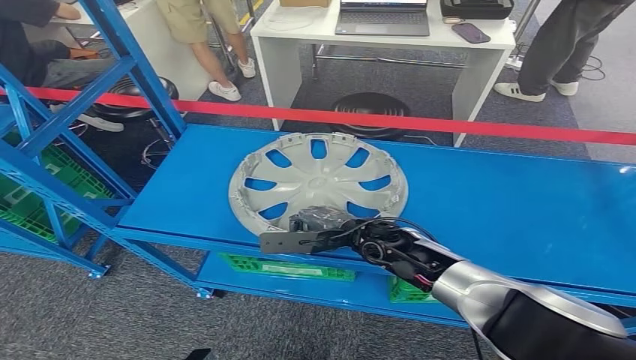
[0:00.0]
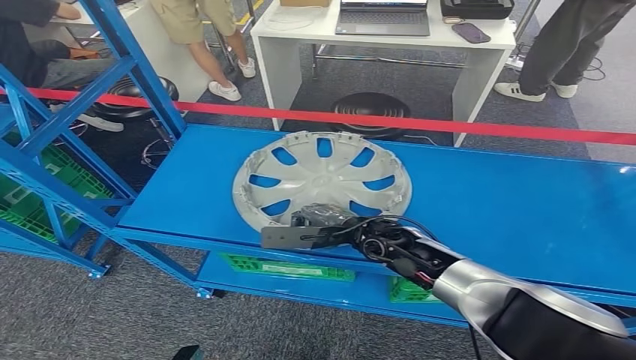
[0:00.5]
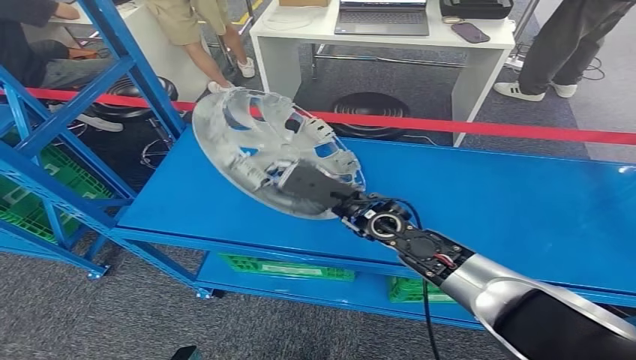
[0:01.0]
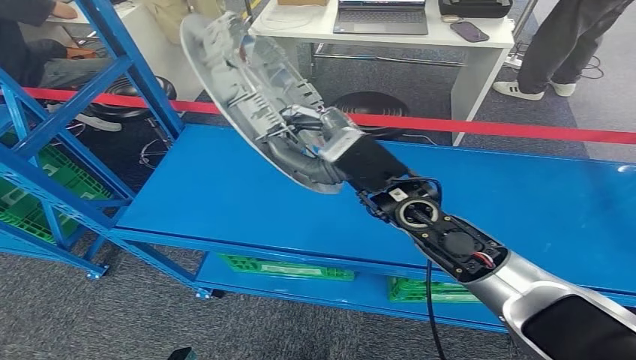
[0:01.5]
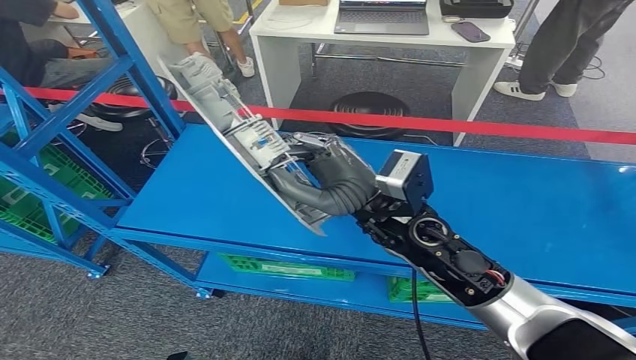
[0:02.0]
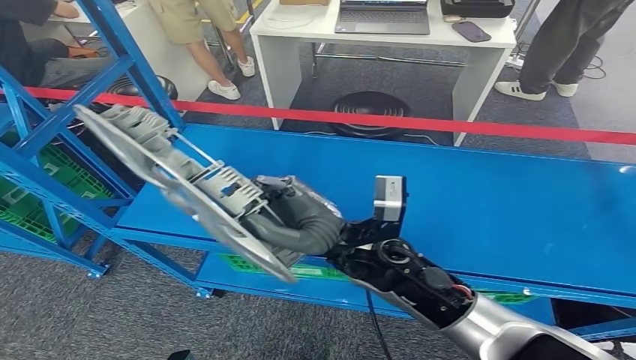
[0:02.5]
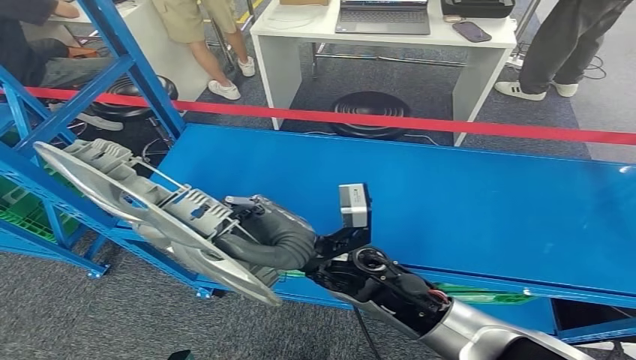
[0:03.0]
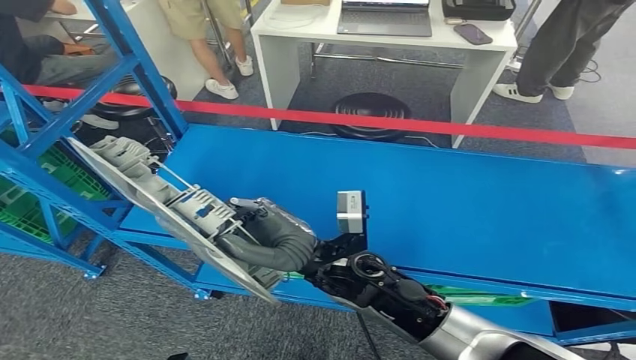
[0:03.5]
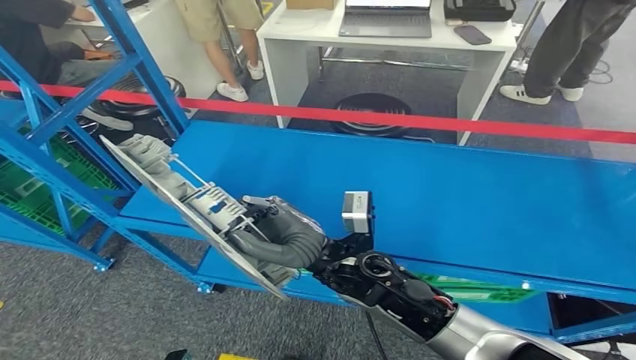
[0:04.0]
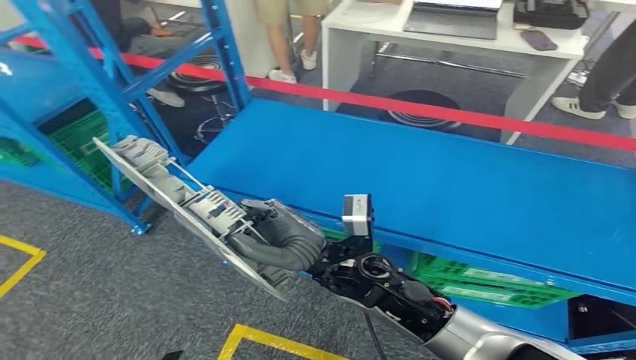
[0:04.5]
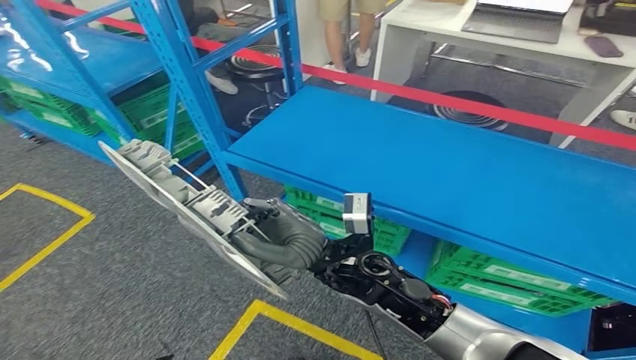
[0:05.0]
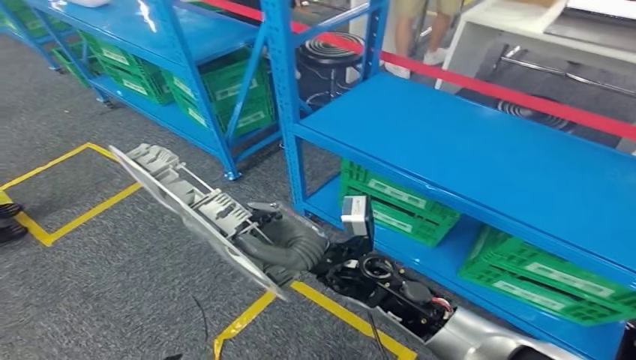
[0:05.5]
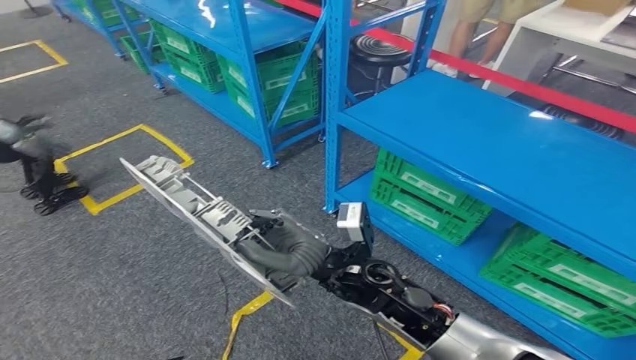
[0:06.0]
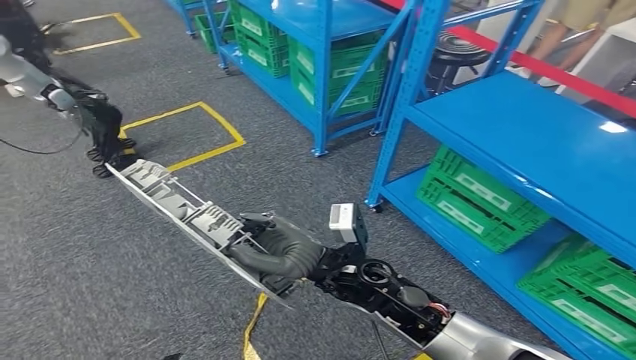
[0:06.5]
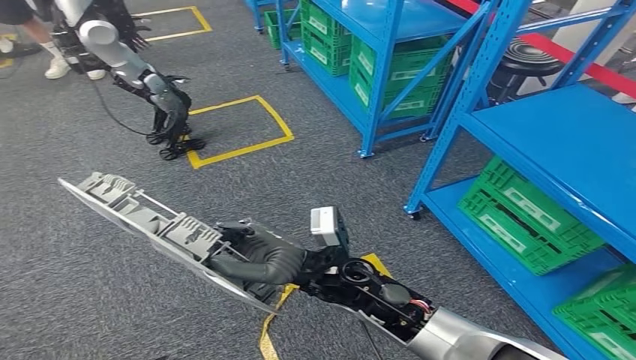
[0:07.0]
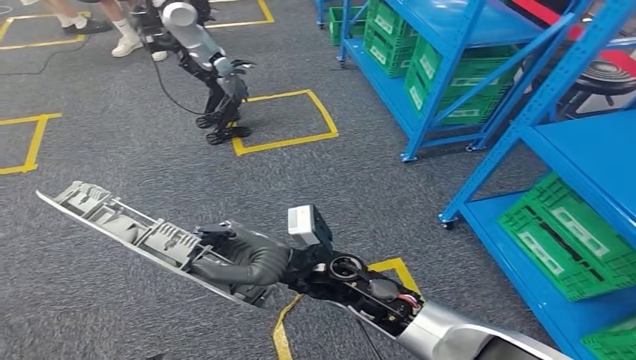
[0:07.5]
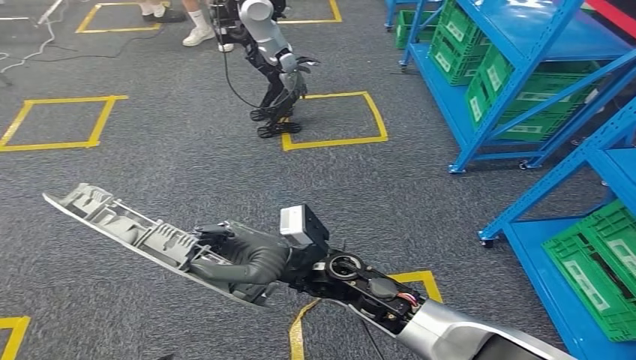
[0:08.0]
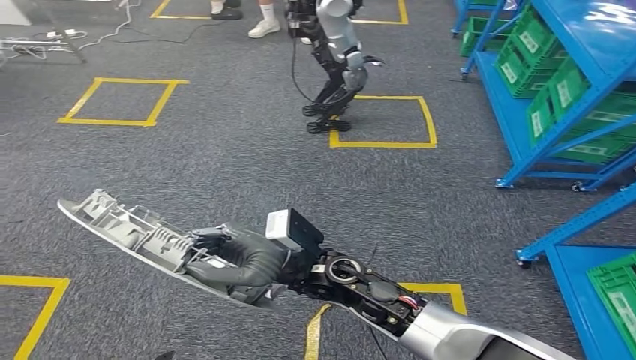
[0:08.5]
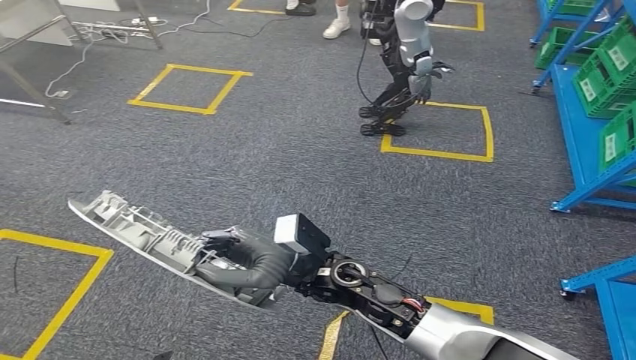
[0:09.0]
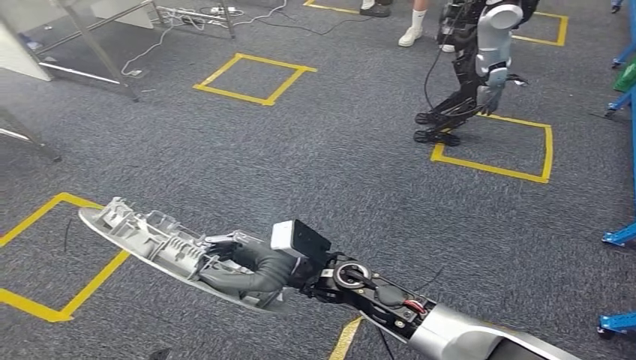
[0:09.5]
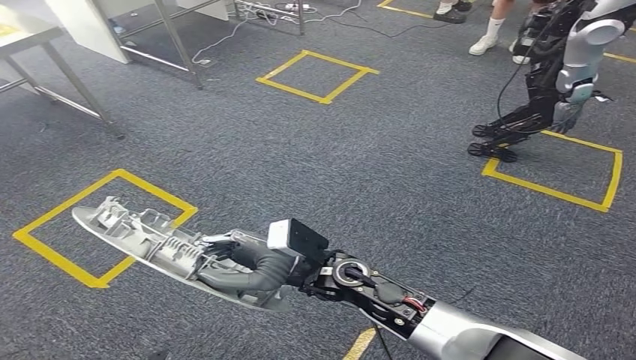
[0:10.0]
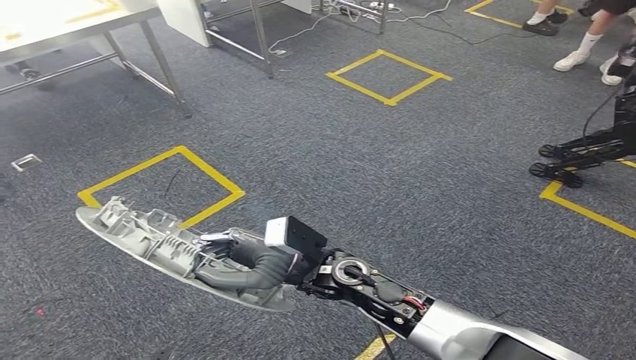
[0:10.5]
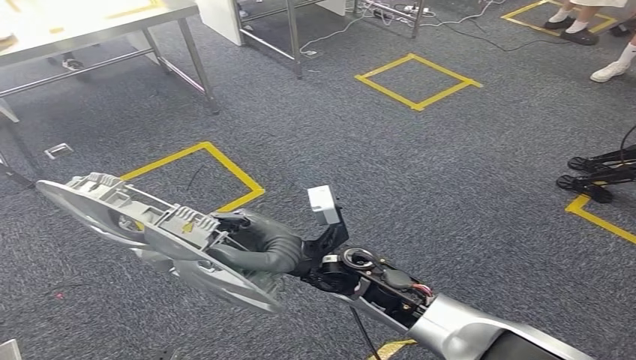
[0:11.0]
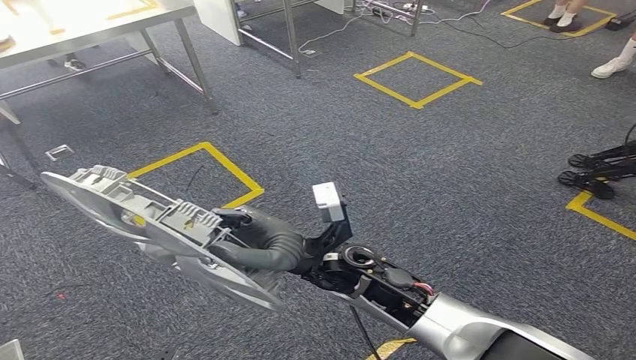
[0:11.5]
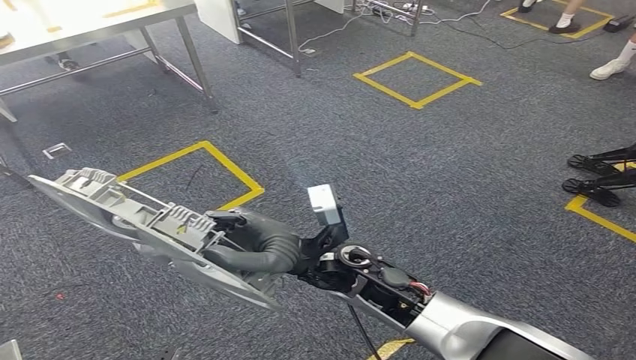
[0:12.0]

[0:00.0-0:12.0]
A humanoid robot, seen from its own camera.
Step, 0:00.0 to 0:02.5: Pick up the small parts from the shelf.
0:00.0 to 0:02.0: The right hand travels upward by roughly 15 cm.

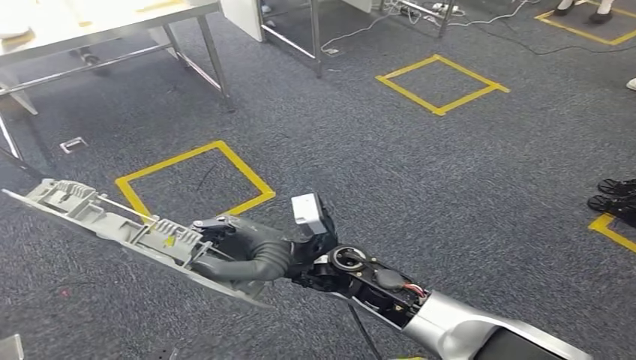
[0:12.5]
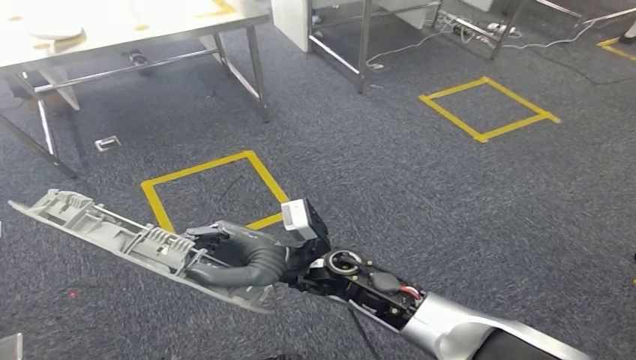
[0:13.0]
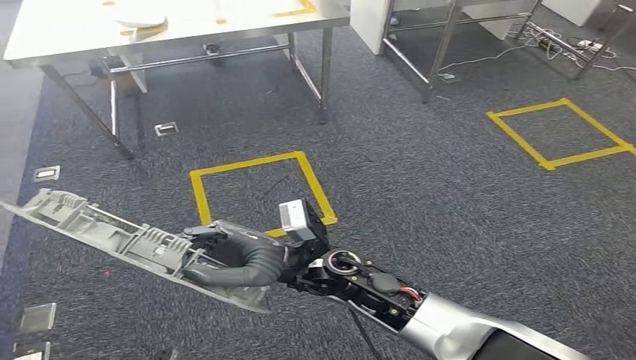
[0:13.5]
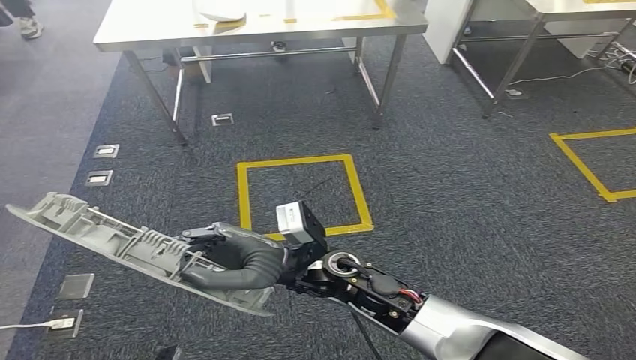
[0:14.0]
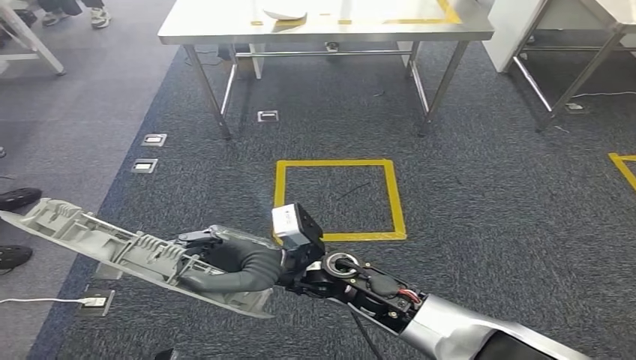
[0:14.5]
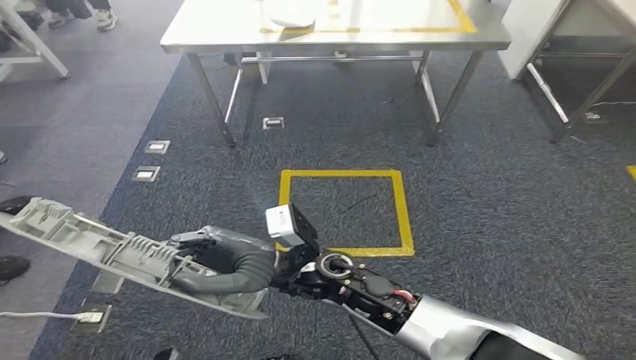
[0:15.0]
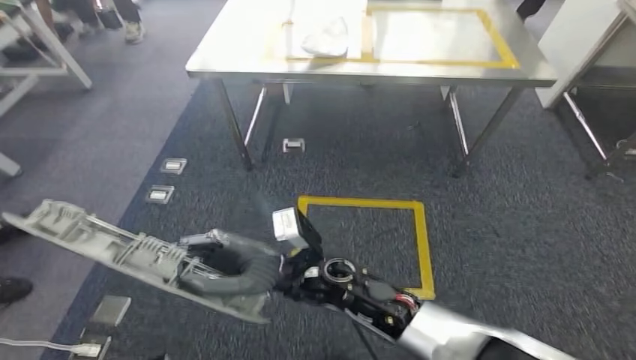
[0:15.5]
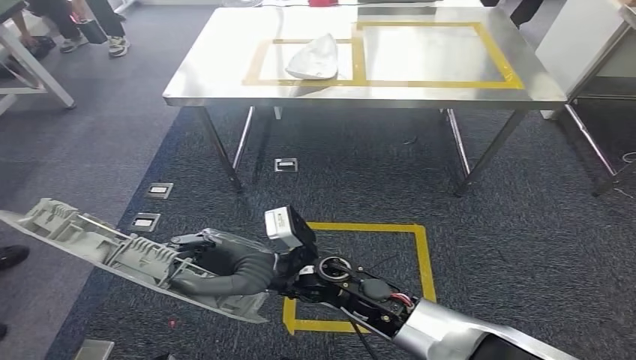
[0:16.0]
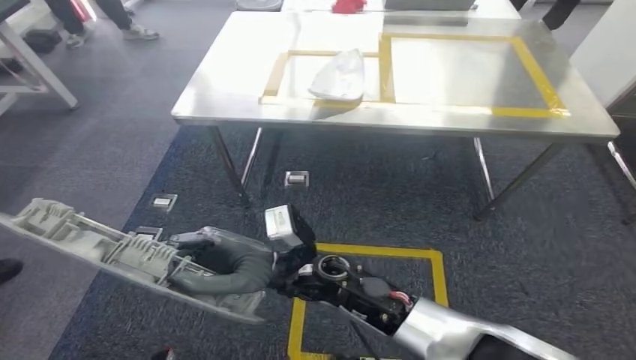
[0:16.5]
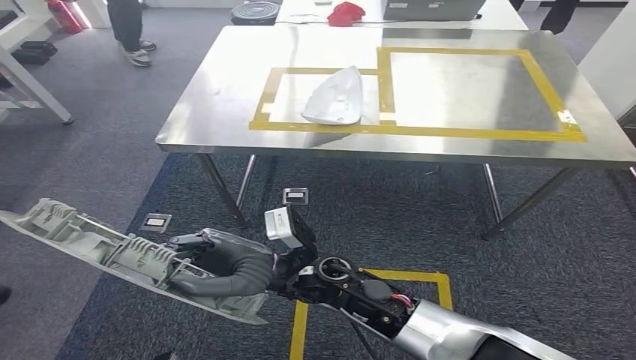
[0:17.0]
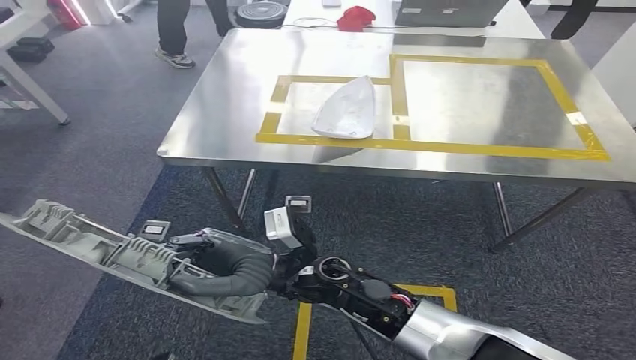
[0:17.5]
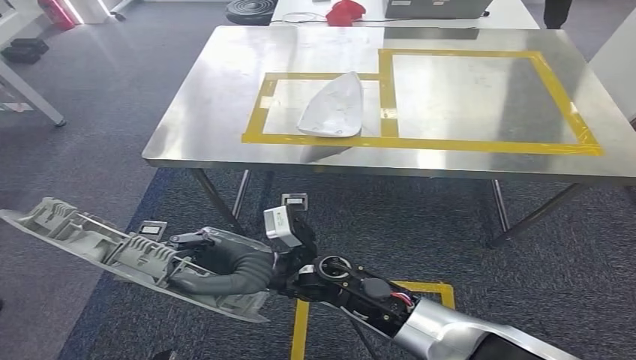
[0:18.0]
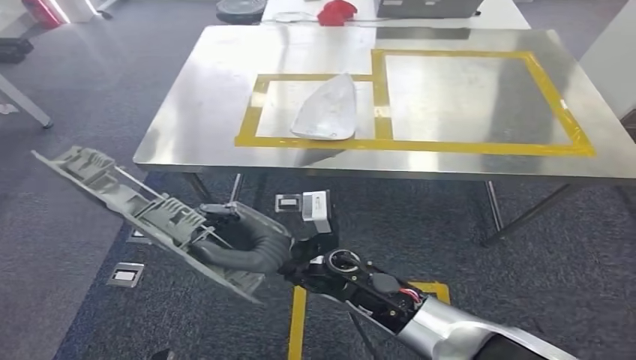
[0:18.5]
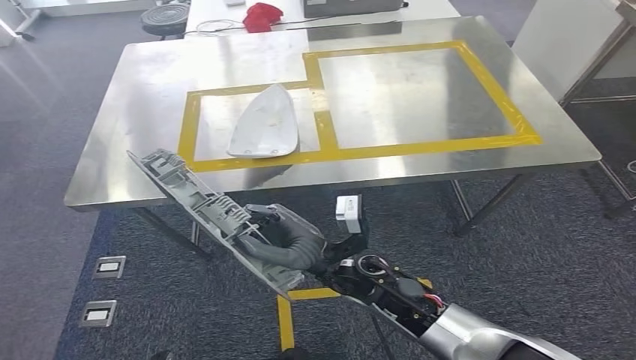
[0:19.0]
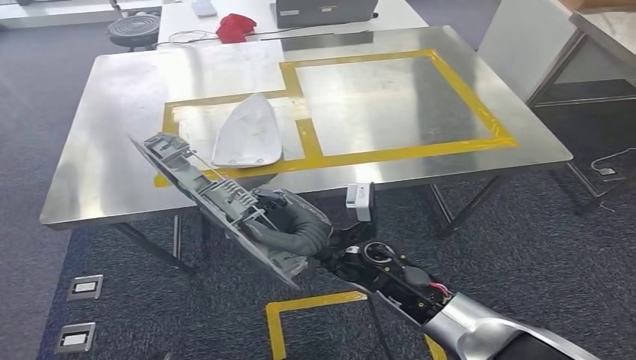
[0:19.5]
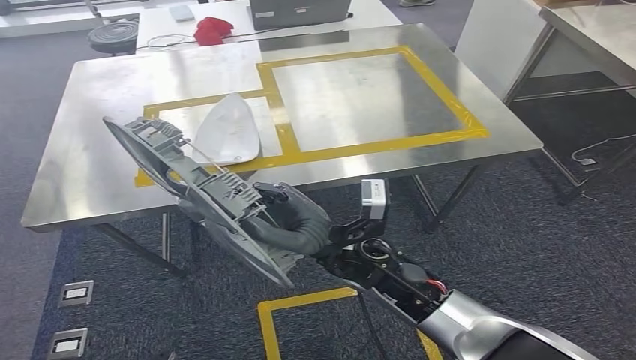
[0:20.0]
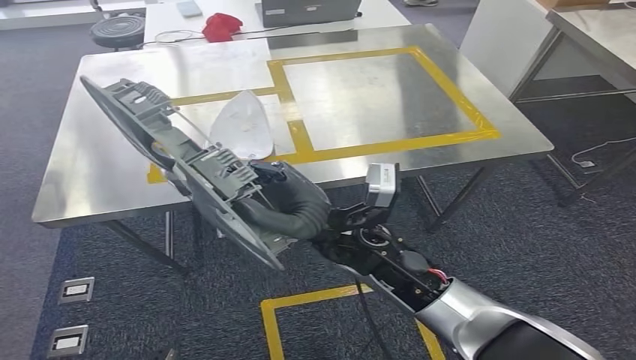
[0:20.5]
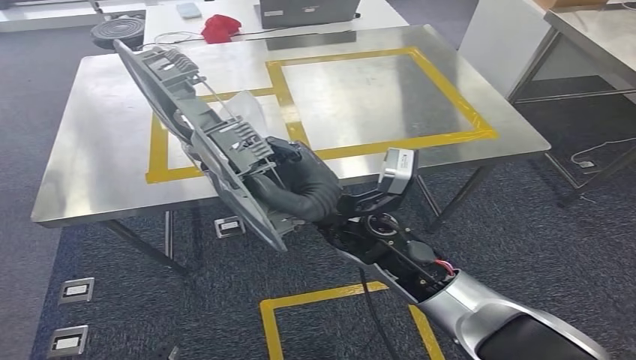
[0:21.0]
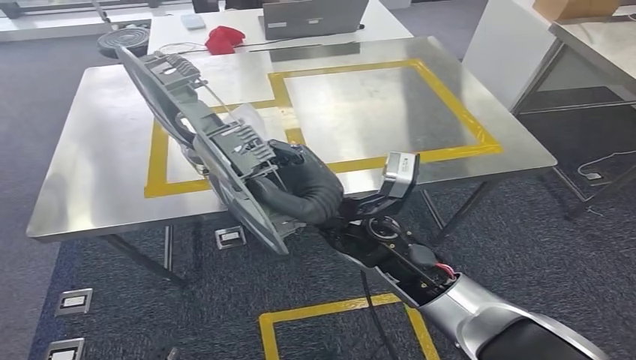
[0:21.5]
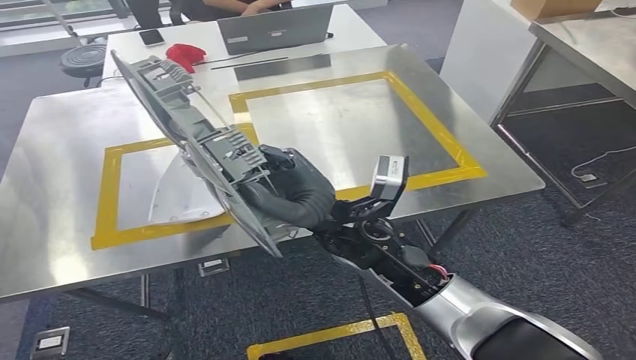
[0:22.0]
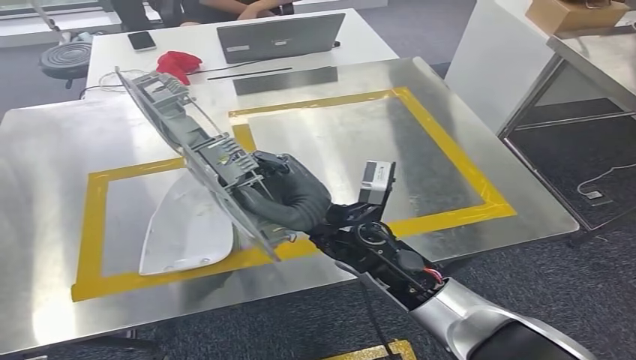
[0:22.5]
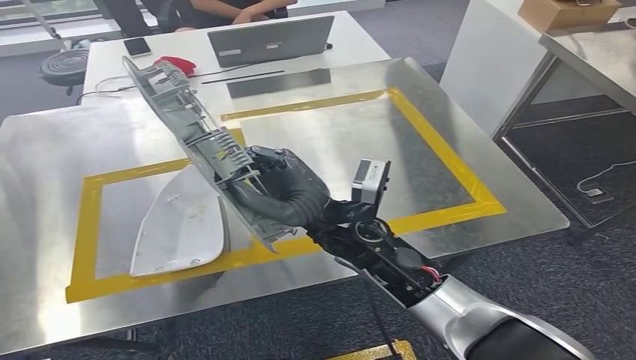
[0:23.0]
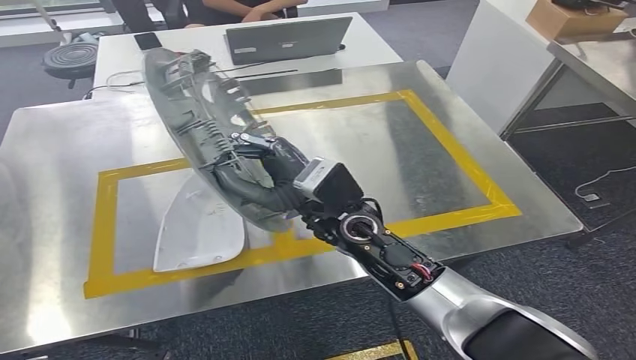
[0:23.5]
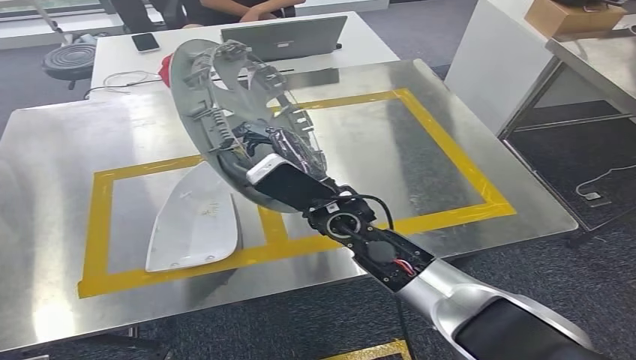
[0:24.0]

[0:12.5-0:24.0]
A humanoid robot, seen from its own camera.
Step, 0:12.5 to 0:21.5: Move the small parts to the workbench.
